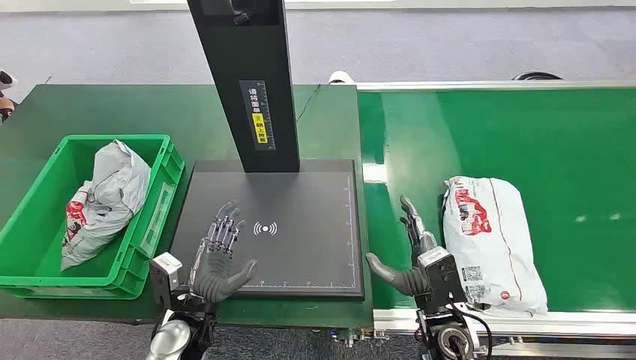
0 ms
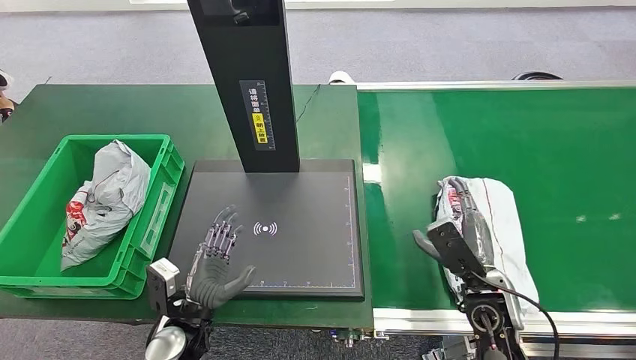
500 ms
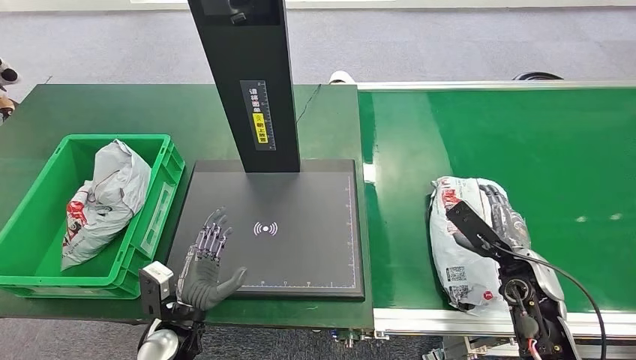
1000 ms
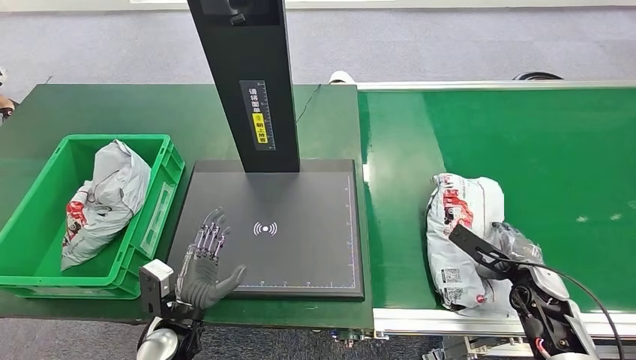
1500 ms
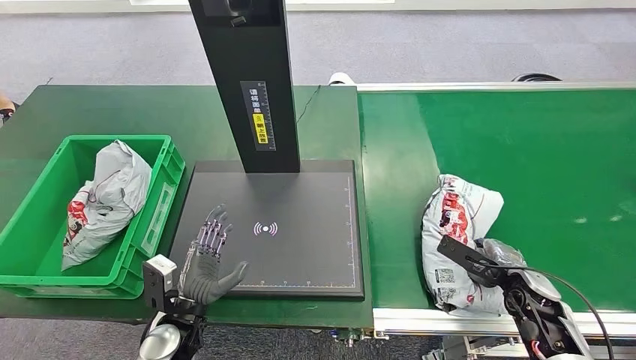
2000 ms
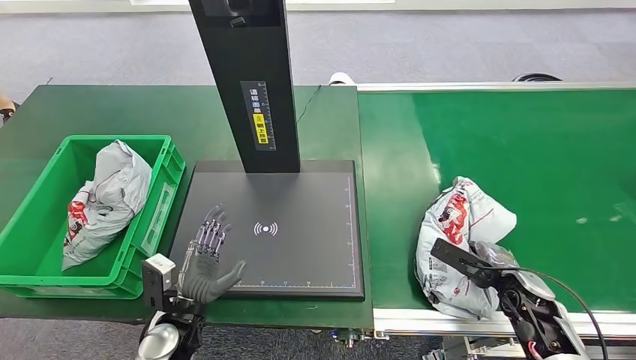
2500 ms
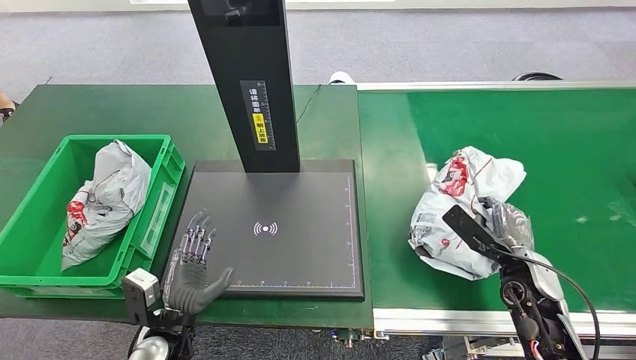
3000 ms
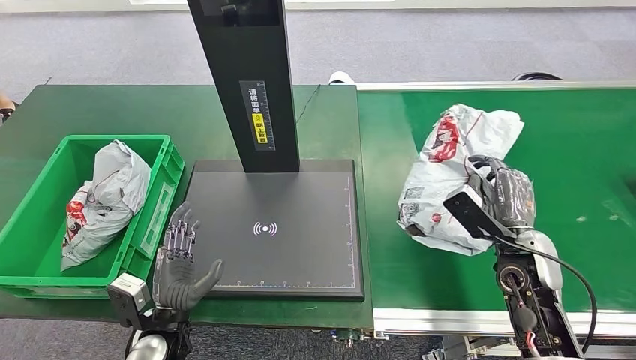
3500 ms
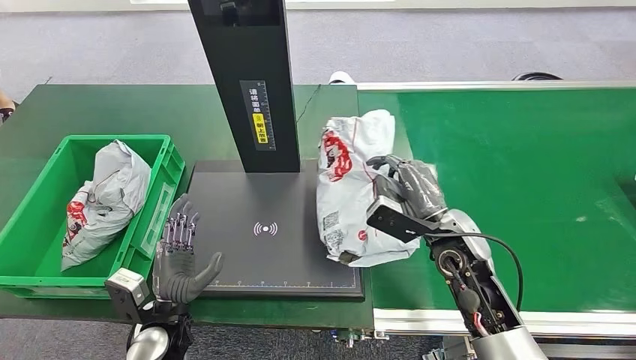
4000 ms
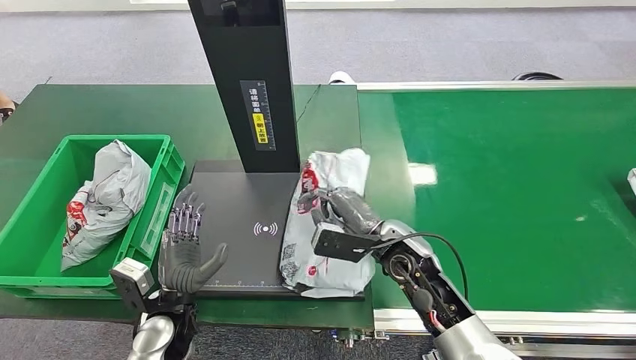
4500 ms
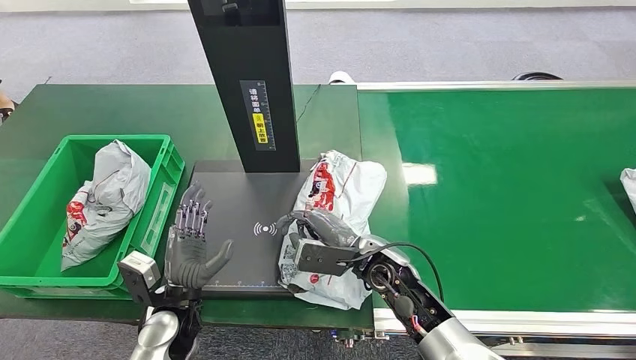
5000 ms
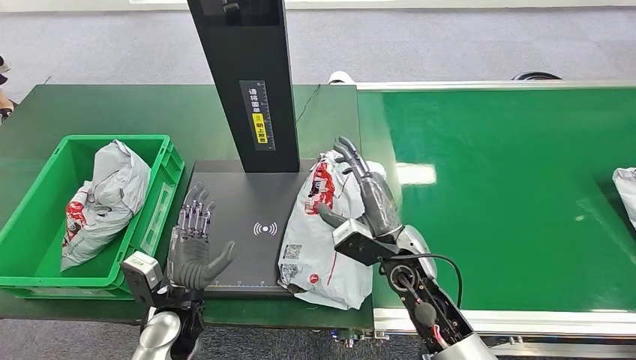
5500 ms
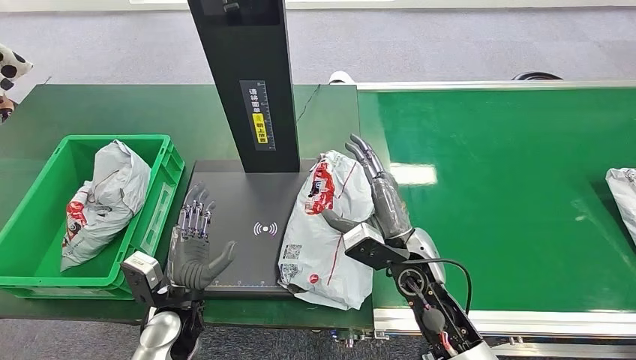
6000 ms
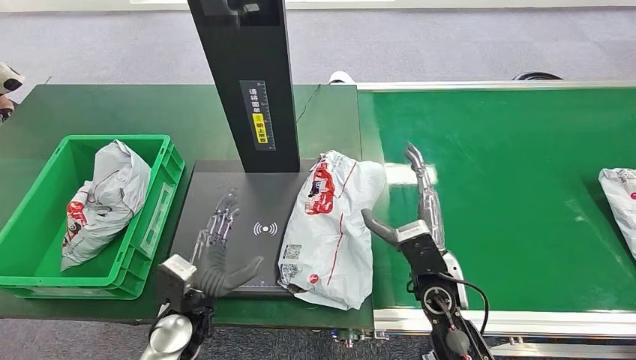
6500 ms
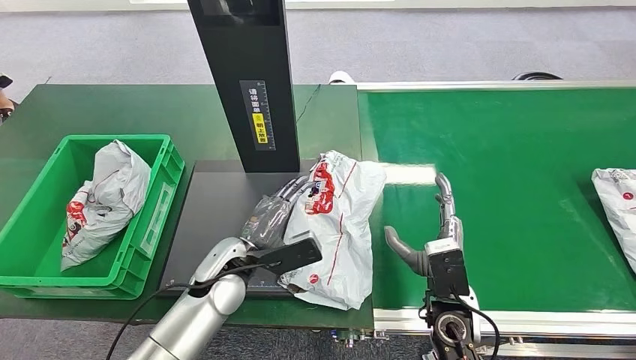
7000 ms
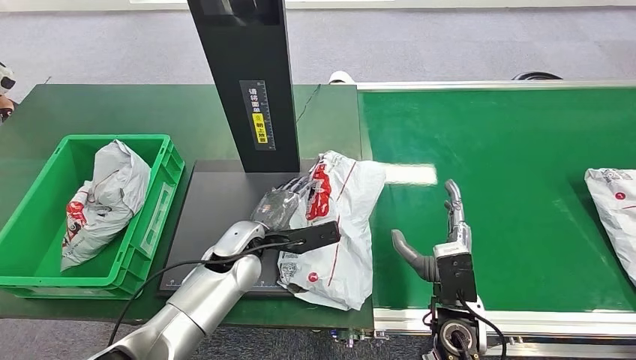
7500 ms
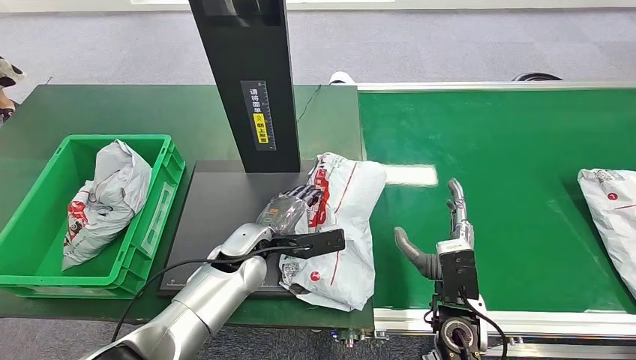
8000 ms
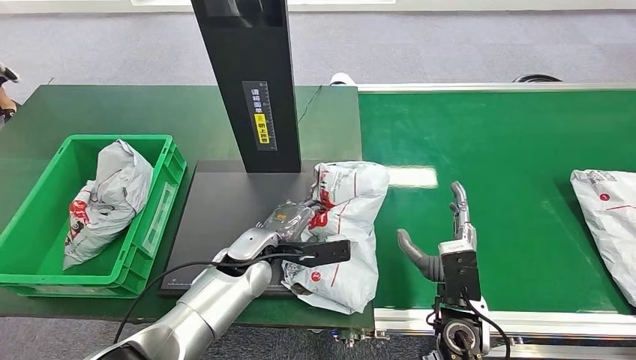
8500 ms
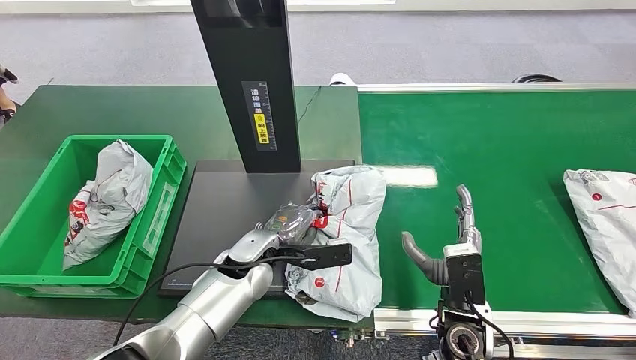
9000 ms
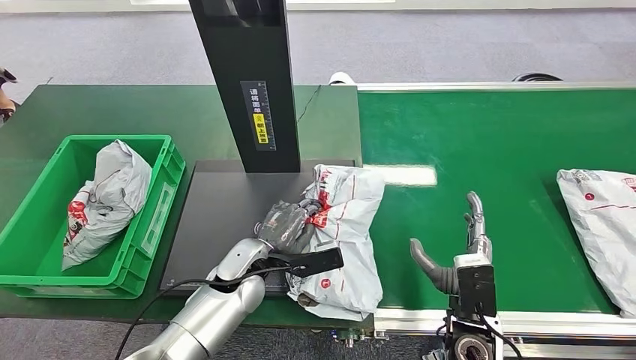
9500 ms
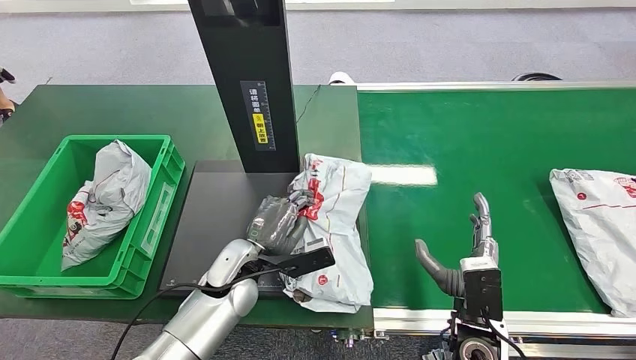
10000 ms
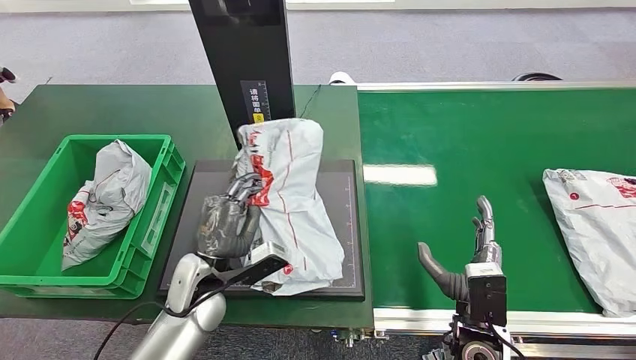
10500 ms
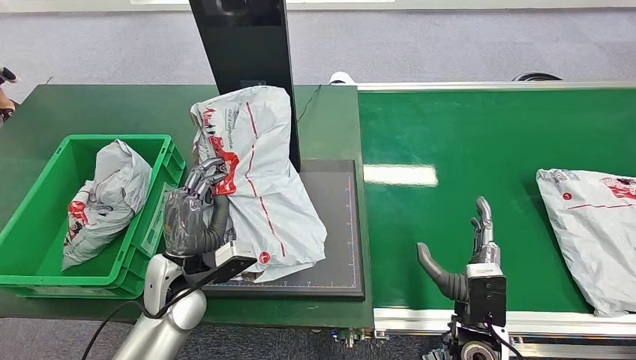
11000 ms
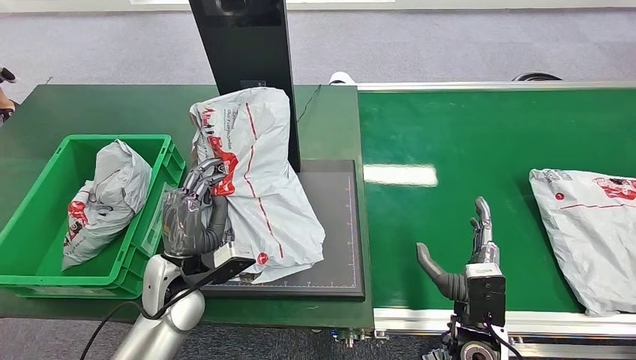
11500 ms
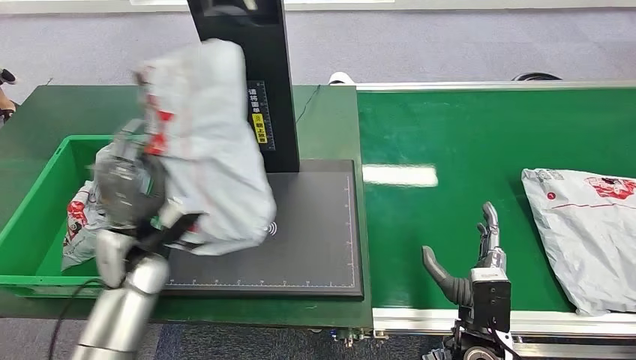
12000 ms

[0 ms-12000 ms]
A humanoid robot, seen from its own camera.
Step, 0 ms to 3000 ms: Pick up the package from the conveyor belt.
Step, 3500 ms to 6000 ms: Place the package onto the inbound machine.
Step, 6500 ms to 10000 ms: Pick up the package from the inbound machine.
2000 ms to 4000 ms: The right hand is displaced to the left and upward by roughly 20 cm.
4000 ms to 6000 ms: The right hand shifts approximately 10 cm to the left.
6000 ms to 8000 ms: The right hand heads backward and to the right, covering approximately 10 cm. The left hand goes about 15 cm forward and to the right.

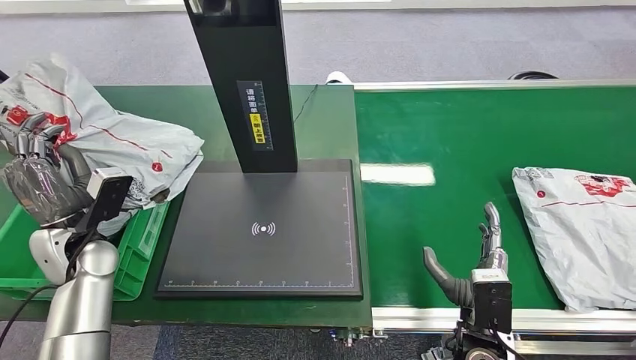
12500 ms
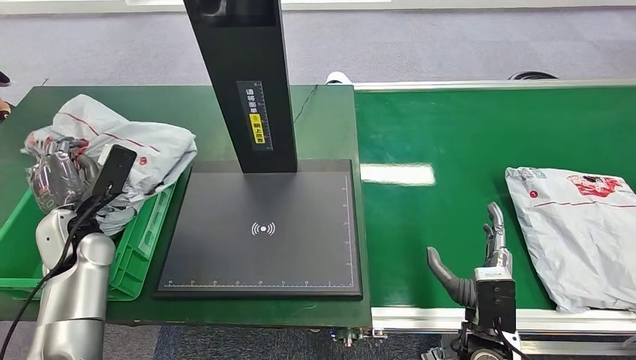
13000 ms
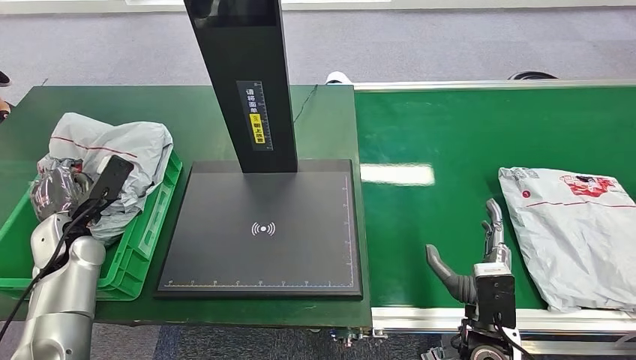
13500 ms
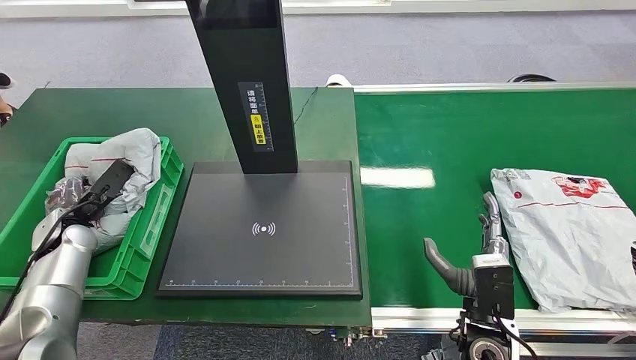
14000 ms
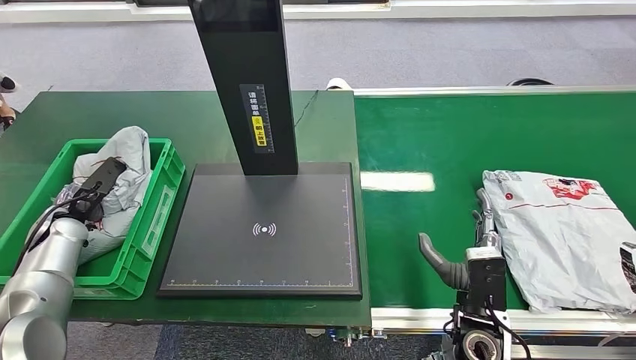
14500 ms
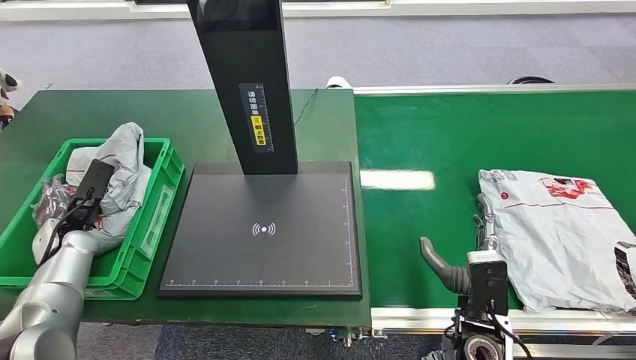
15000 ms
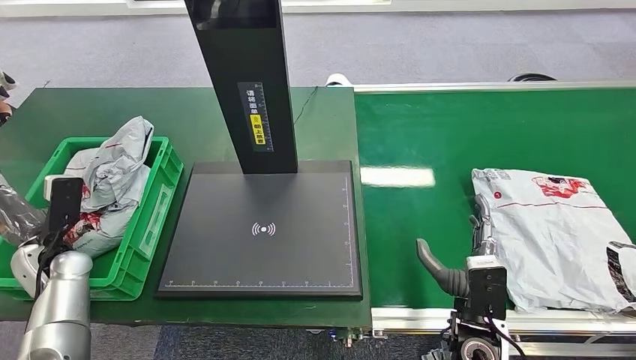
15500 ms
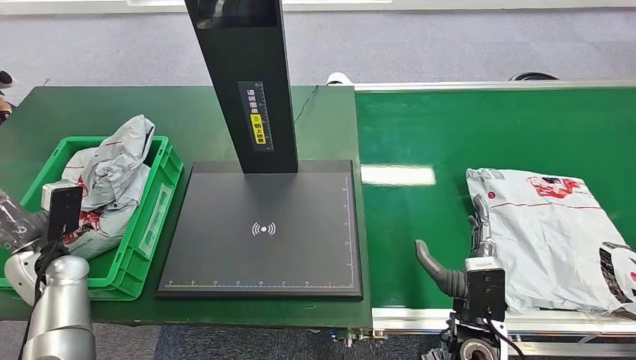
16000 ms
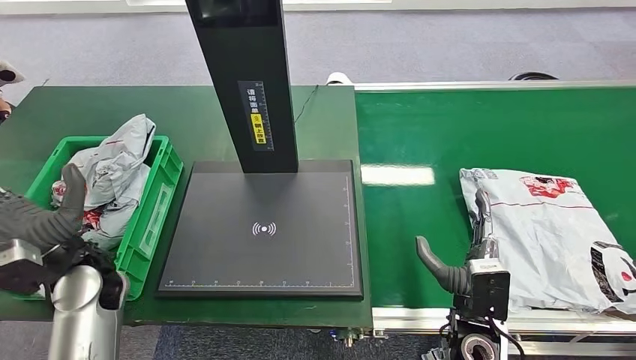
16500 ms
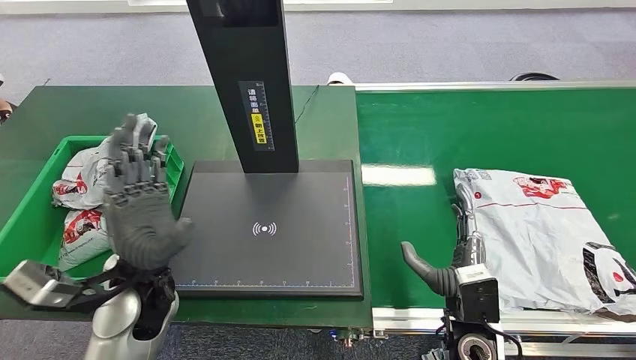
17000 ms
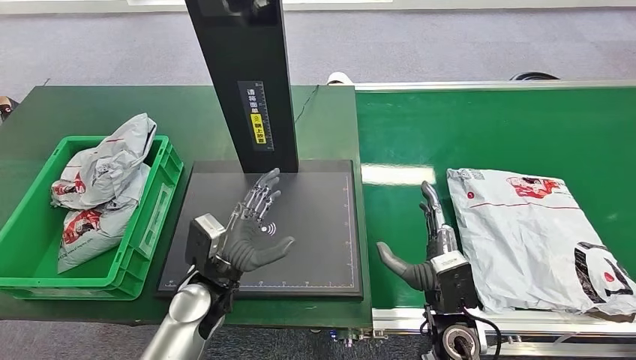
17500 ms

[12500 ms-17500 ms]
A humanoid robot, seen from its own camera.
Step, 12500 ms to 17000 ms: Place the package into the parcel locker.
